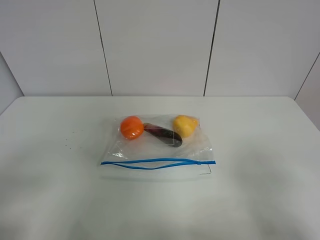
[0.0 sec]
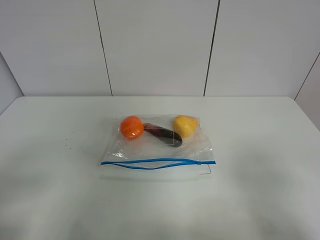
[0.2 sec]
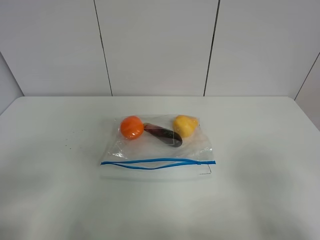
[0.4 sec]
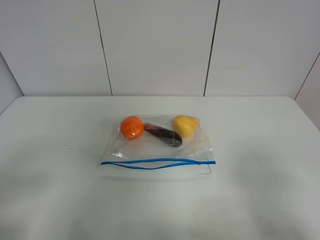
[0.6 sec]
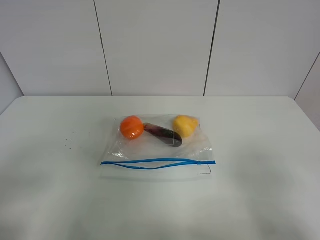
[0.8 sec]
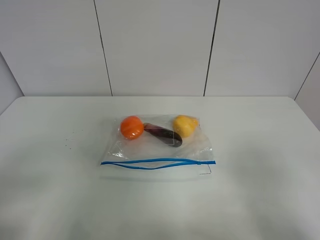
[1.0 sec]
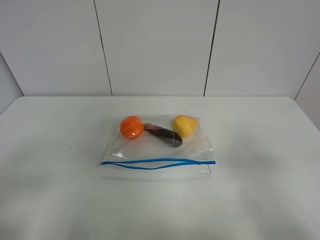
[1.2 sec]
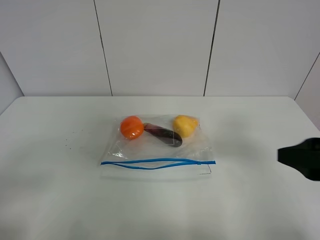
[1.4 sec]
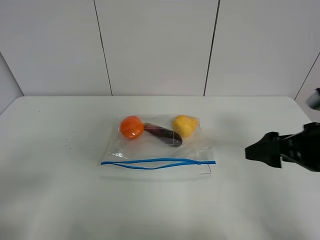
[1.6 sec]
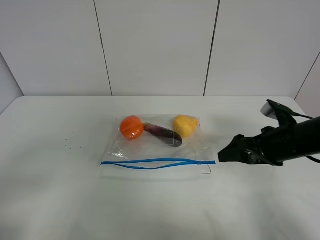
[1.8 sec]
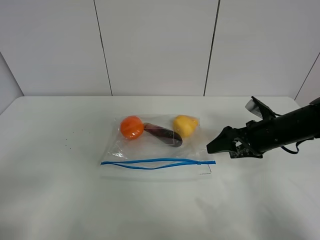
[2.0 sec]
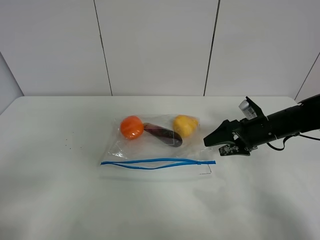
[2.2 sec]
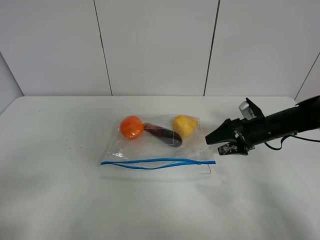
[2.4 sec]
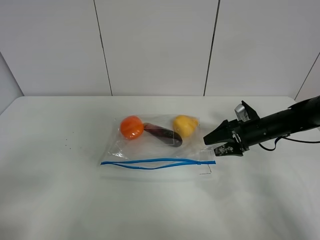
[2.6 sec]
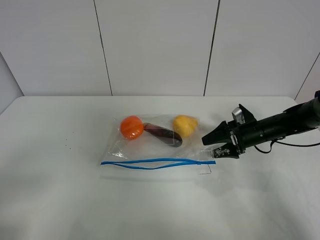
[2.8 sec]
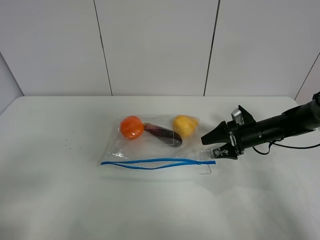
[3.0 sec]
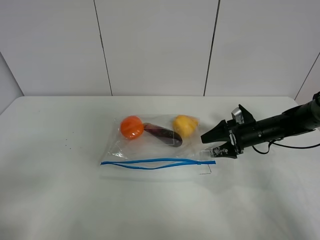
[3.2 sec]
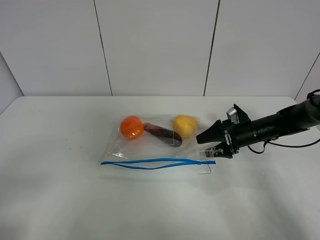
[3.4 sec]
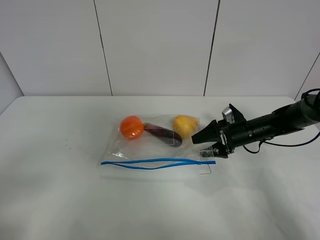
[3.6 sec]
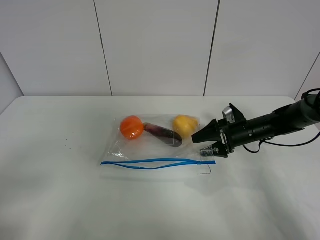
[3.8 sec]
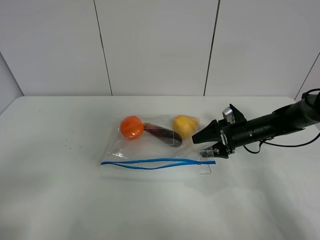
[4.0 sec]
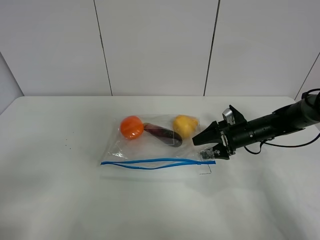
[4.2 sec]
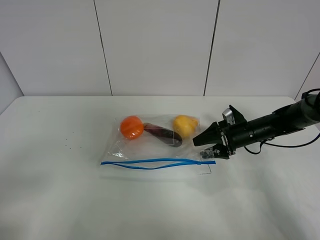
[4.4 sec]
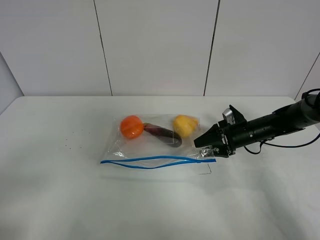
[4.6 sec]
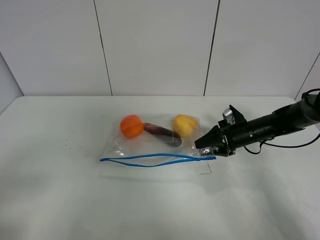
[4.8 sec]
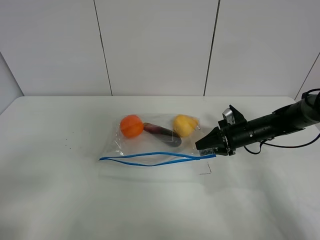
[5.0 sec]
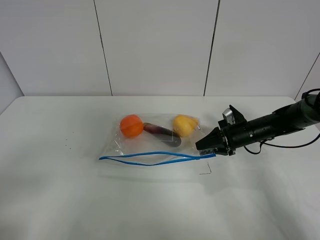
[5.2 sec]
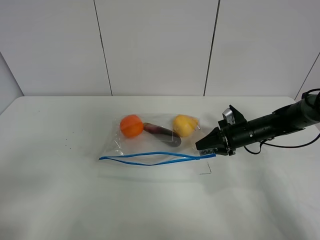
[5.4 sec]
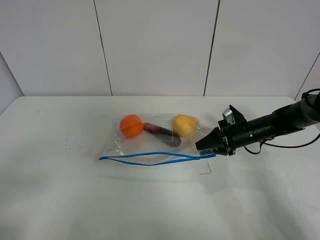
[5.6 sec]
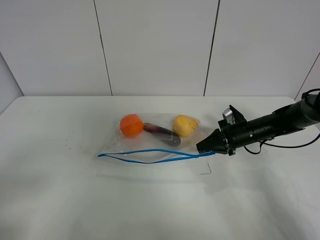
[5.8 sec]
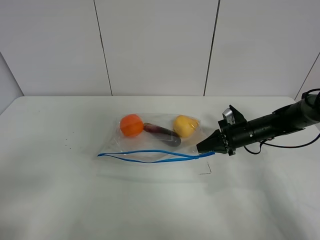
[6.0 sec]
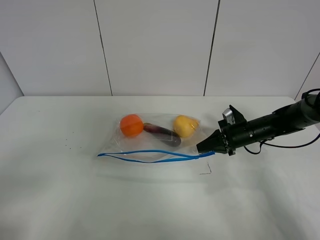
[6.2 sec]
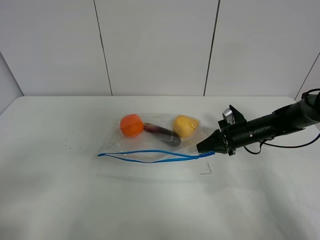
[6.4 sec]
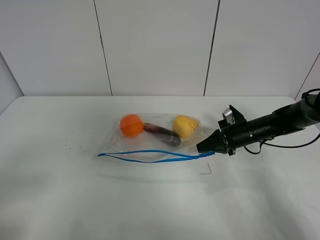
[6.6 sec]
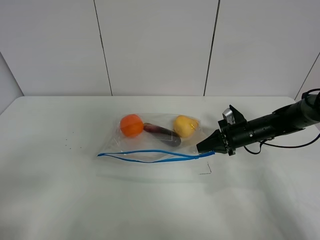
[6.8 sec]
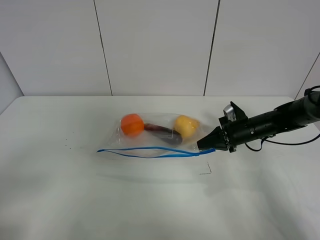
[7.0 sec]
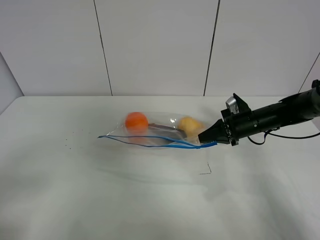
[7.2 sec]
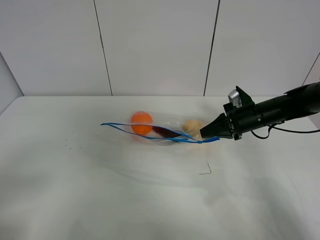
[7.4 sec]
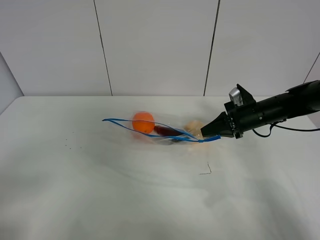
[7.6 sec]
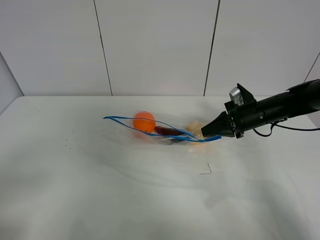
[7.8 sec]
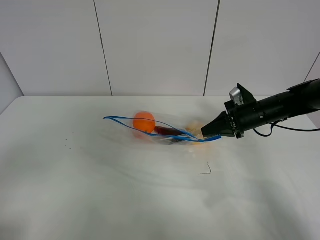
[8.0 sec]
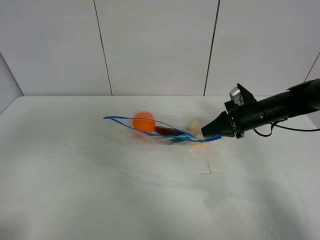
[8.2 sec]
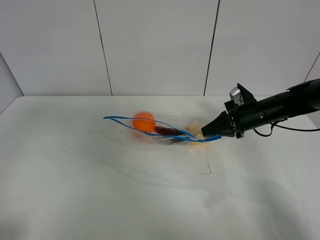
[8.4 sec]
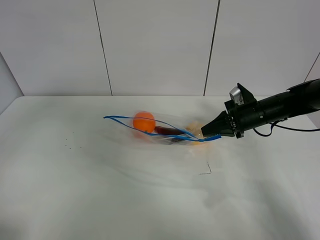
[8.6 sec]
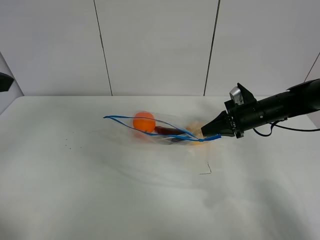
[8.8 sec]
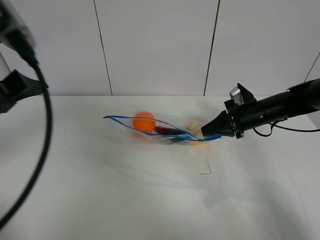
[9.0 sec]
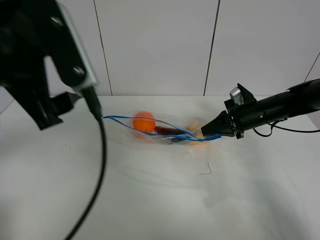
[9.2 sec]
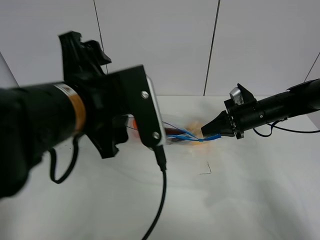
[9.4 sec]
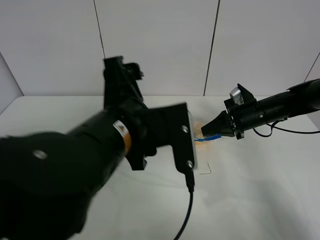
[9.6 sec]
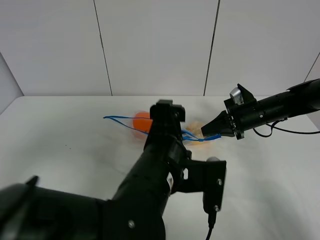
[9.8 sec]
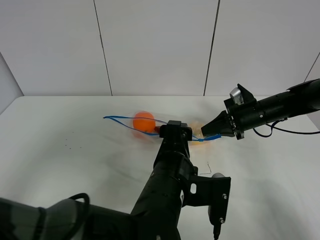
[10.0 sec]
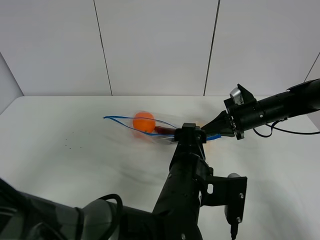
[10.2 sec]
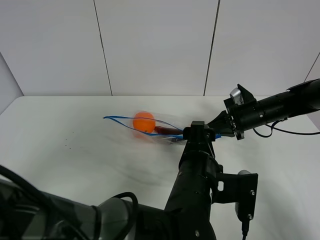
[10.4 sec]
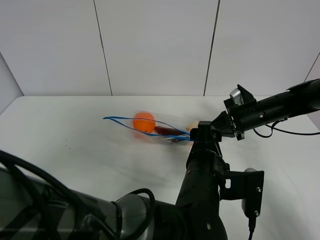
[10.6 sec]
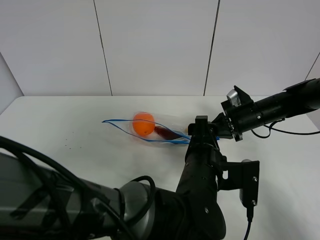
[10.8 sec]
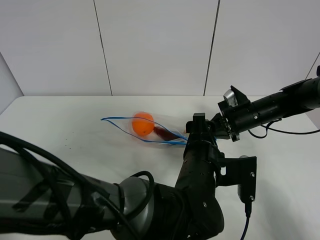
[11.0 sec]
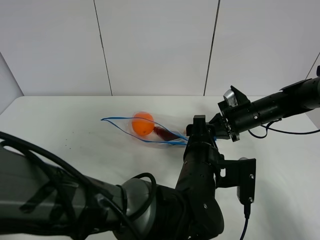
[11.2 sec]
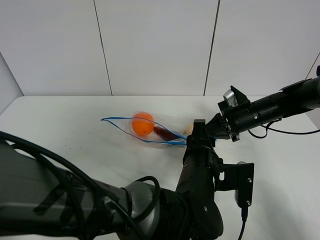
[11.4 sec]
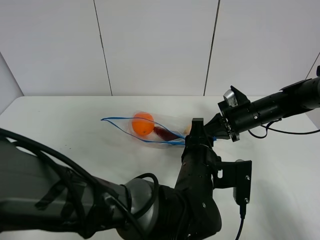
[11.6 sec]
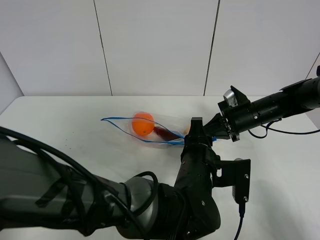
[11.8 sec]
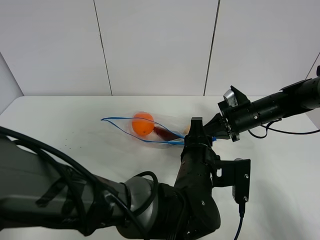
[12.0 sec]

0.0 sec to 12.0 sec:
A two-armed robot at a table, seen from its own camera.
Step, 0.0 sec to 5.8 sec: Grasp the fruit bag with right gripper.
Step, 6.0 sec to 7.8 sec: Lift the fruit bag with your right gripper.
0.0 sec to 1.6 sec: The right gripper heads forward, covering approximately 20 cm.
1.6 sec to 3.0 sec: The right gripper is displaced forward and downward by roughly 25 cm.
3.0 sec to 4.4 sec: There are only small adjustments of the grippers.
4.4 sec to 6.0 sec: The right gripper closes up.
6.0 sec to 7.6 sec: The right gripper heads upward, covering roughly 5 cm.
7.6 sec to 9.0 sec: The left gripper moves forward, upward and to the right, some 25 cm.
9.0 sec to 10.4 sec: The left gripper travels to the right and downward by roughly 35 cm.
10.4 sec to 12.0 sec: The left gripper closes its fingers.

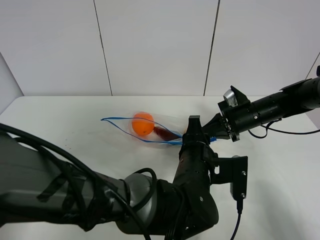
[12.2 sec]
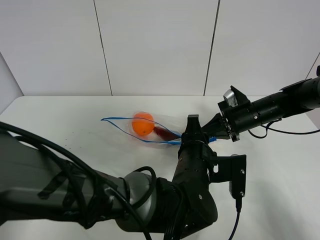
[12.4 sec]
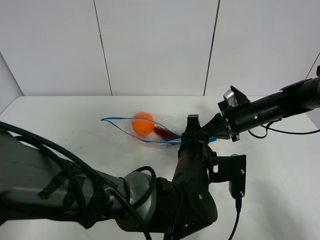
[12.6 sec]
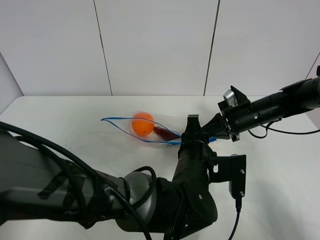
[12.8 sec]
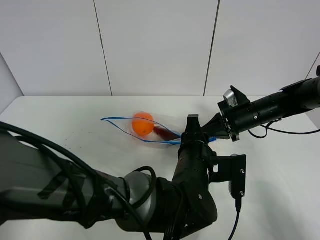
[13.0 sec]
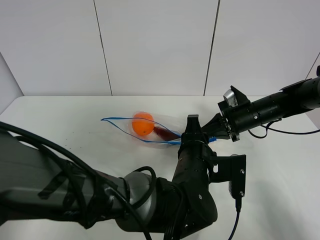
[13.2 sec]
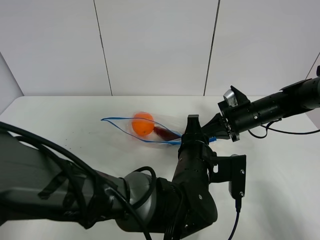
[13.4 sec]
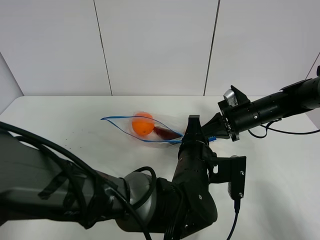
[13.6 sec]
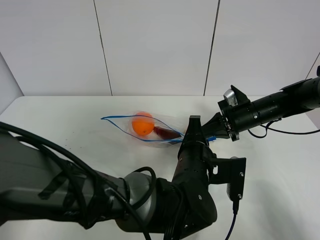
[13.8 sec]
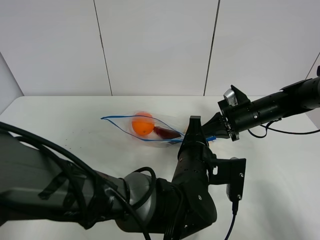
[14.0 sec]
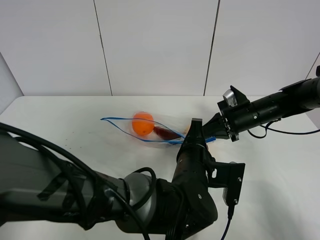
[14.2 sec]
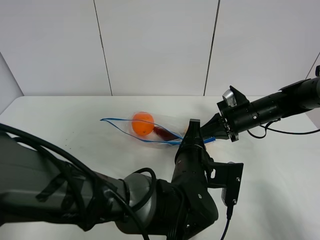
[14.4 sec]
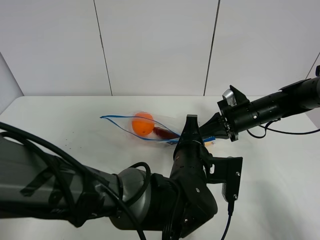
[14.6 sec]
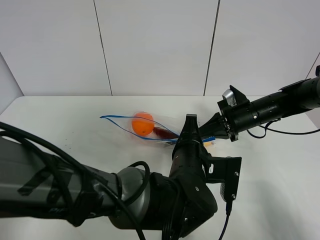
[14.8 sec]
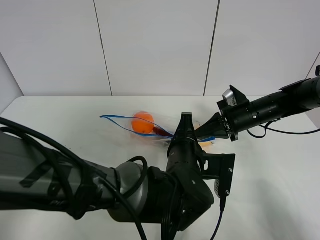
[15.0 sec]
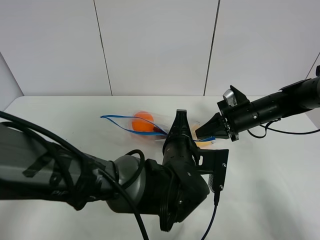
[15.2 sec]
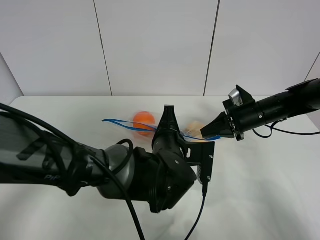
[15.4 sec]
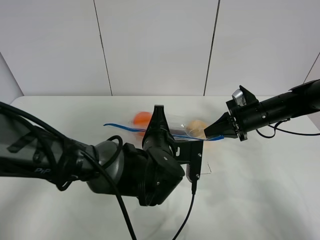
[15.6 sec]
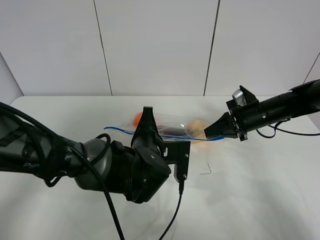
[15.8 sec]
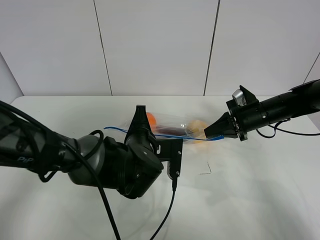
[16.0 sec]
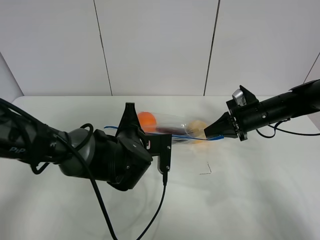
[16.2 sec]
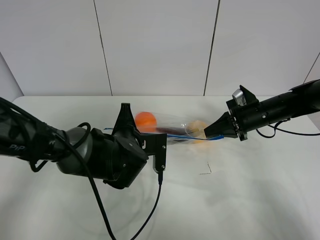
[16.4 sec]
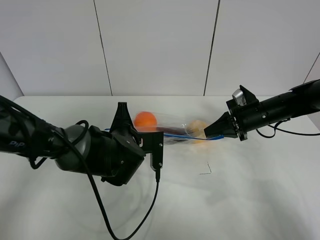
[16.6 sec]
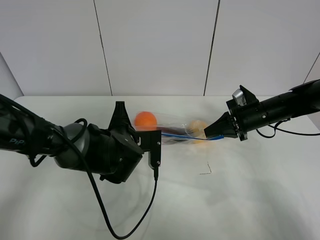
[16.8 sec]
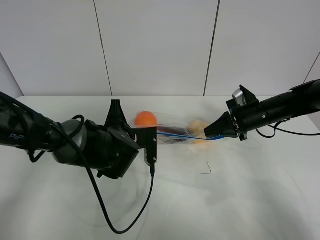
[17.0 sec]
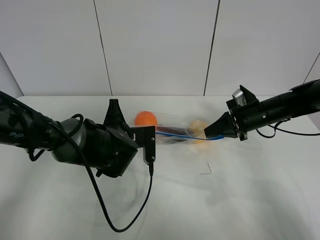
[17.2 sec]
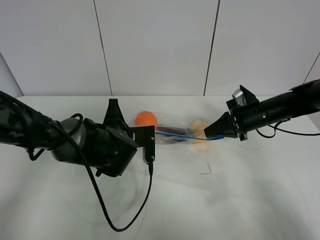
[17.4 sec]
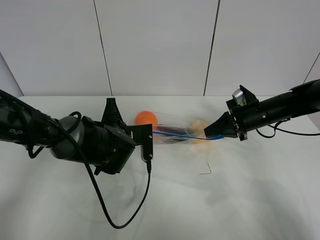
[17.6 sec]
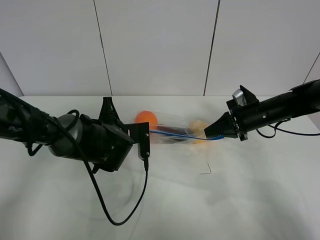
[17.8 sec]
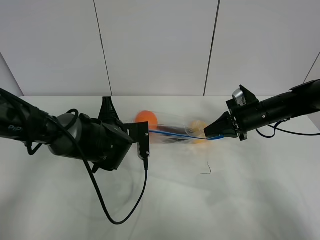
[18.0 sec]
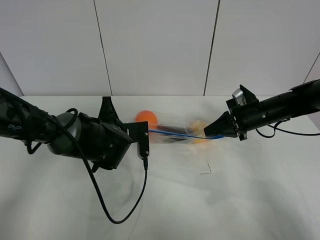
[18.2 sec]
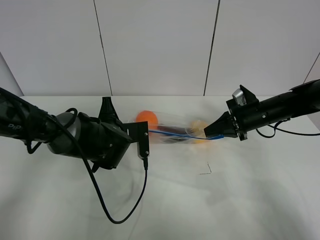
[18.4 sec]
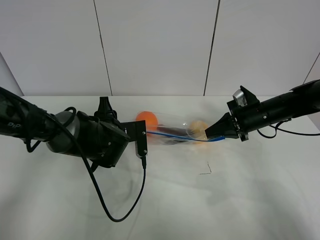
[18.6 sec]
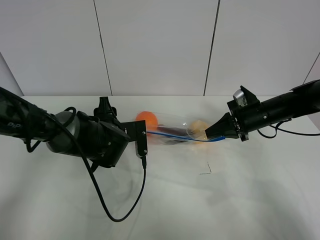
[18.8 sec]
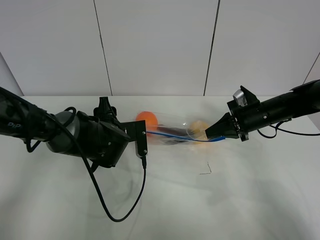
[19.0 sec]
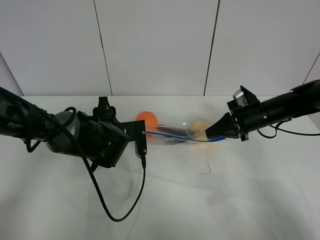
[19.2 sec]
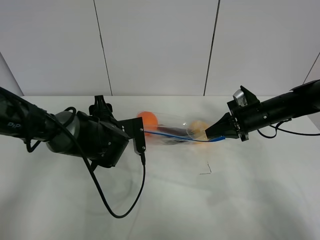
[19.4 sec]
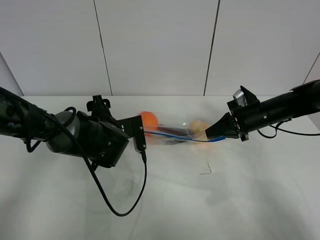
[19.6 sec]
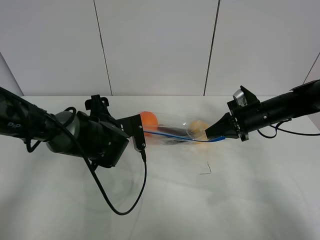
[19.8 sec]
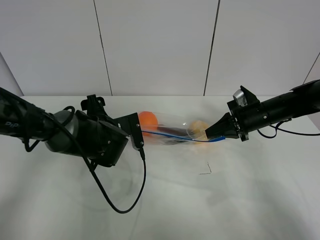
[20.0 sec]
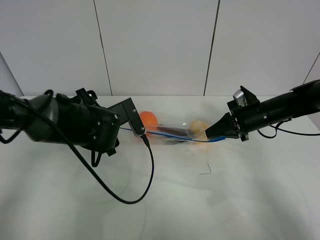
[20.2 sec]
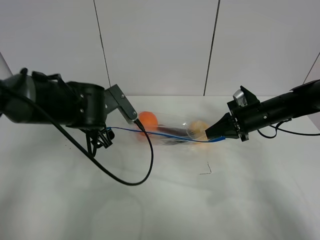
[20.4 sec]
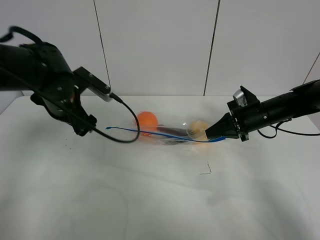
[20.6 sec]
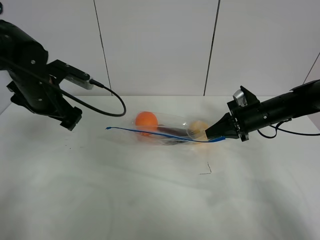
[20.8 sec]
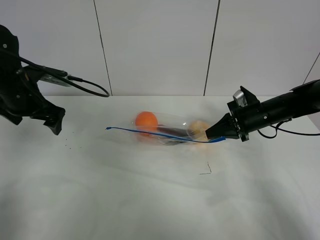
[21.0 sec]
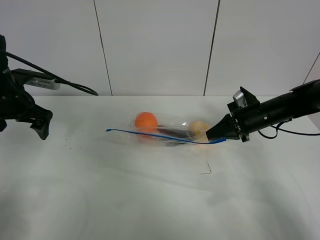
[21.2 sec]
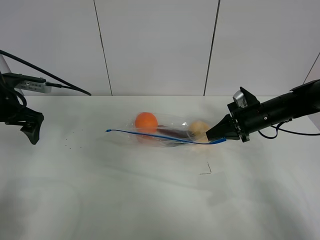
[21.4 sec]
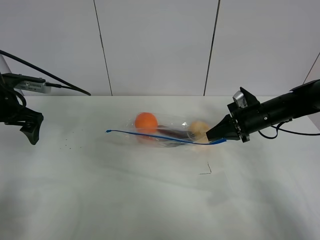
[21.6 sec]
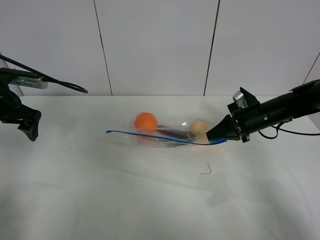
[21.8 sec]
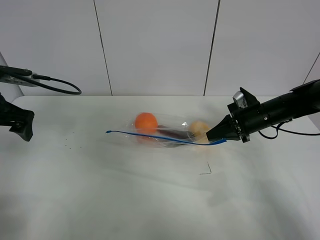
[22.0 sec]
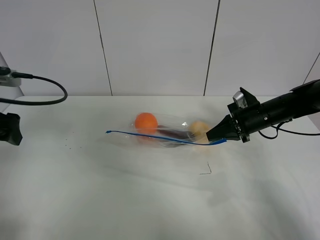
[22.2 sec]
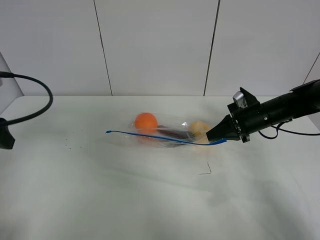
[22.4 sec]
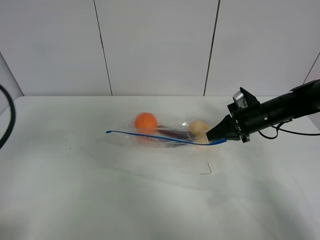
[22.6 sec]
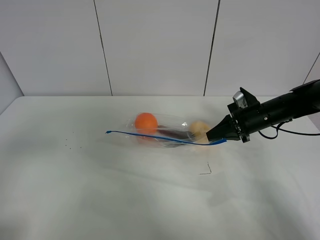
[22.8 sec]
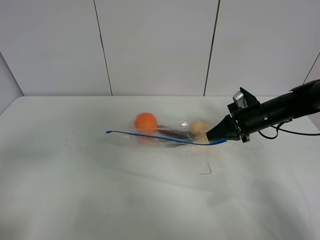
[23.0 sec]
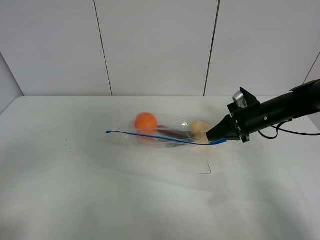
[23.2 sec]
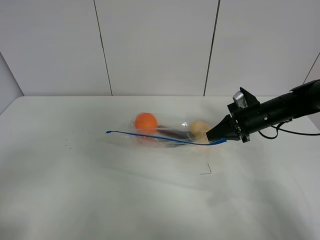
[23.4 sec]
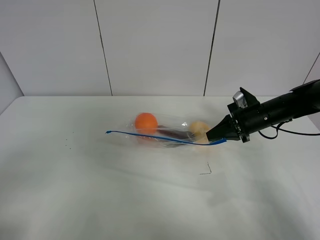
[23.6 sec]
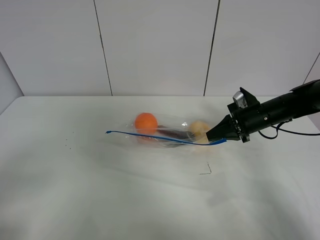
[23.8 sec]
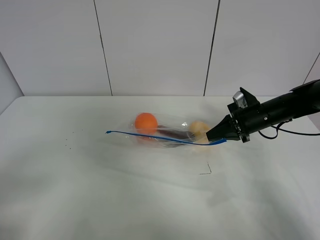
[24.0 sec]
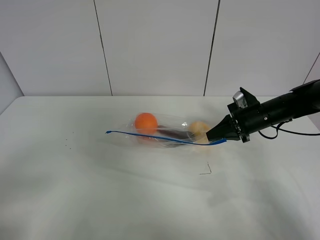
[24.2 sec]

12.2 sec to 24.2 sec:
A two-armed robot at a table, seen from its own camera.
Step, 12.2 sec to 19.2 sec: Pull the fruit bag with left gripper.
12.2 sec to 13.8 sec: The two grippers keep their place.
13.8 sec to 15.2 sec: The grippers stay close to where they were, moving slightly.
15.2 sec to 16.6 sec: The left gripper moves to the left and forward, about 10 cm.
16.6 sec to 18.2 sec: The grippers move only a little.
18.2 sec to 19.8 sec: The left gripper opens.
19.8 sec to 21.2 sec: The left gripper moves to the left and upward, approximately 25 cm.
21.2 sec to 22.6 sec: The left gripper travels backward by some 20 cm.
22.6 sec to 24.2 sec: The left gripper heads backward, covering approximately 10 cm.
